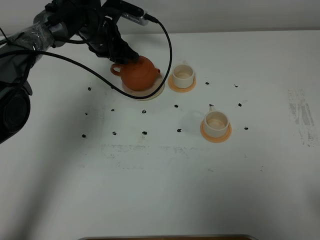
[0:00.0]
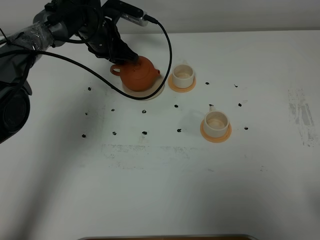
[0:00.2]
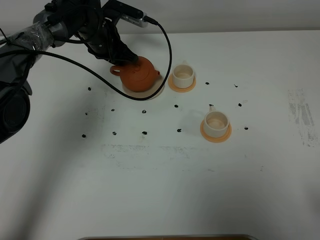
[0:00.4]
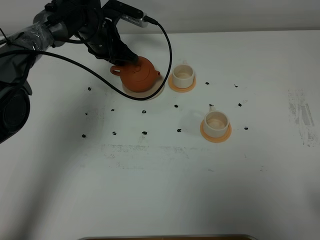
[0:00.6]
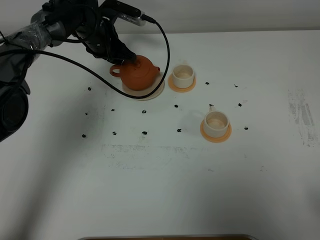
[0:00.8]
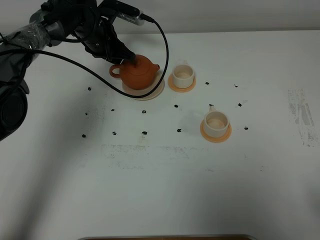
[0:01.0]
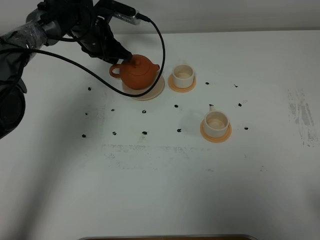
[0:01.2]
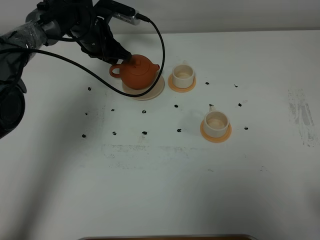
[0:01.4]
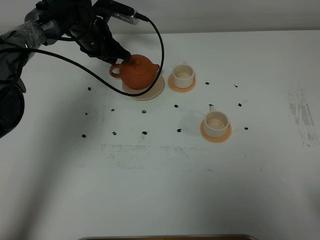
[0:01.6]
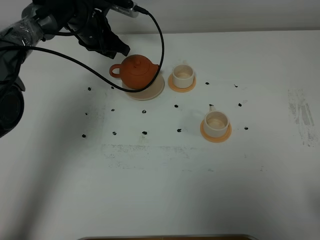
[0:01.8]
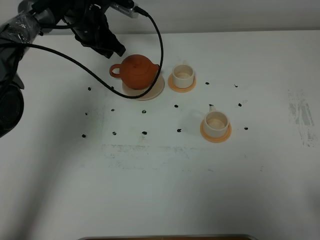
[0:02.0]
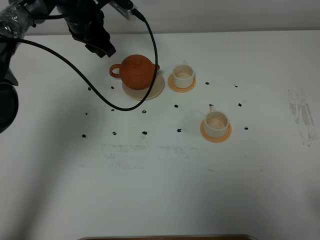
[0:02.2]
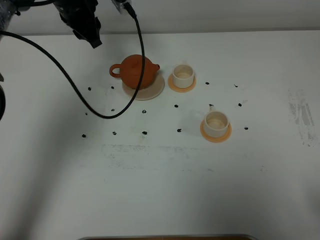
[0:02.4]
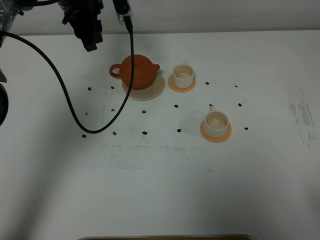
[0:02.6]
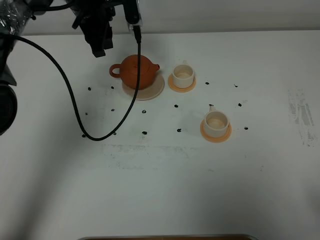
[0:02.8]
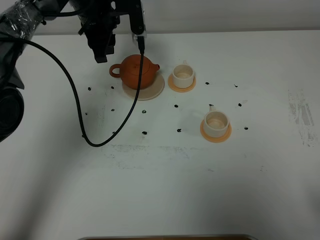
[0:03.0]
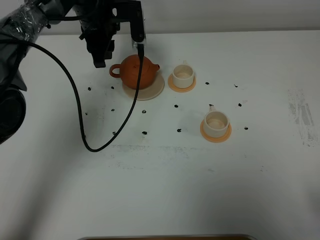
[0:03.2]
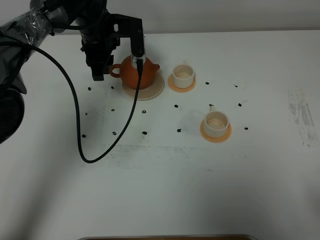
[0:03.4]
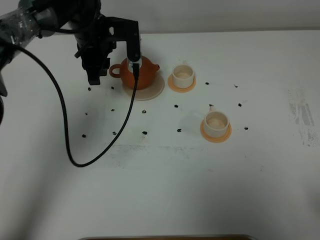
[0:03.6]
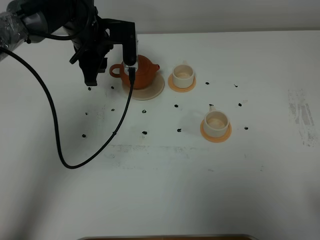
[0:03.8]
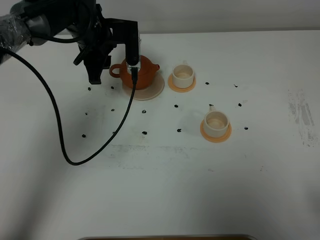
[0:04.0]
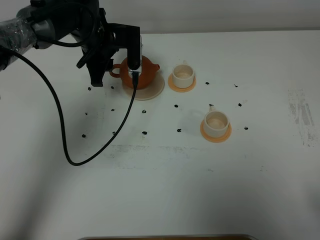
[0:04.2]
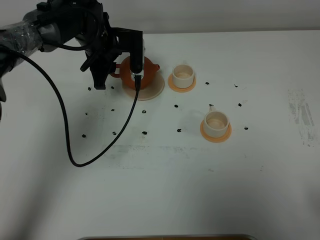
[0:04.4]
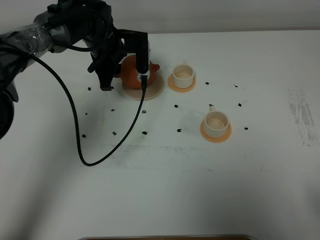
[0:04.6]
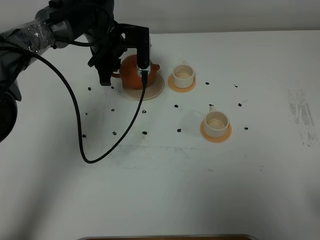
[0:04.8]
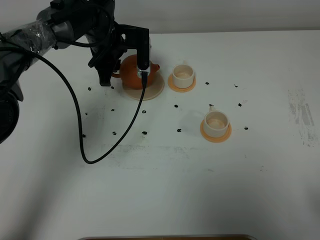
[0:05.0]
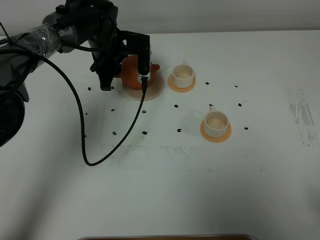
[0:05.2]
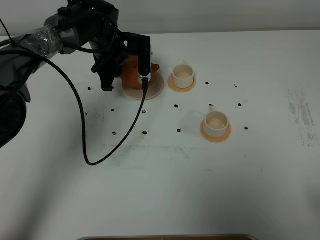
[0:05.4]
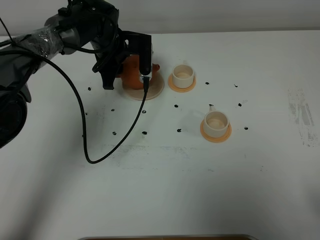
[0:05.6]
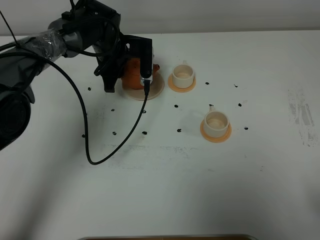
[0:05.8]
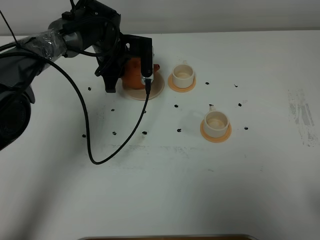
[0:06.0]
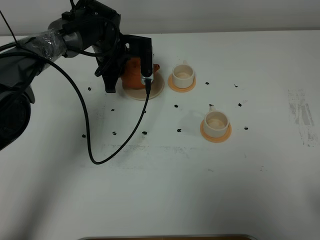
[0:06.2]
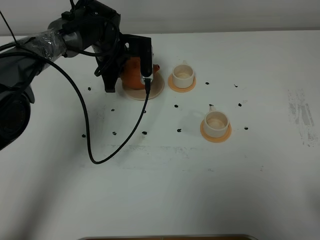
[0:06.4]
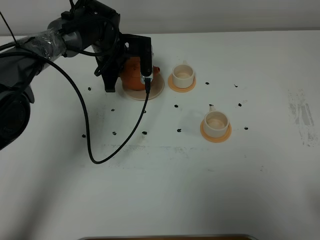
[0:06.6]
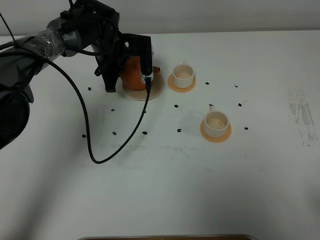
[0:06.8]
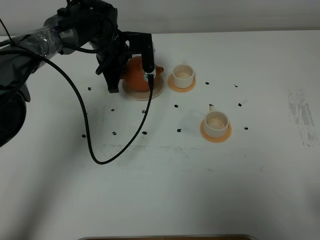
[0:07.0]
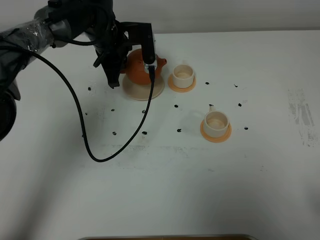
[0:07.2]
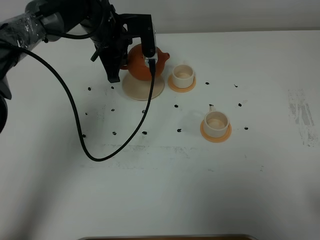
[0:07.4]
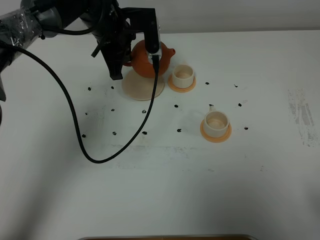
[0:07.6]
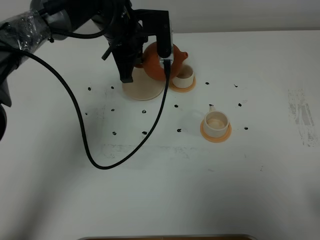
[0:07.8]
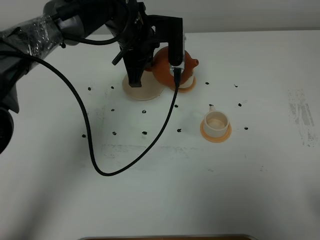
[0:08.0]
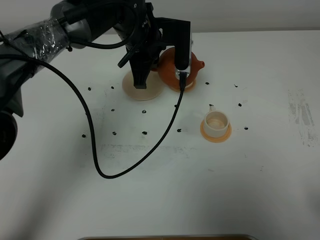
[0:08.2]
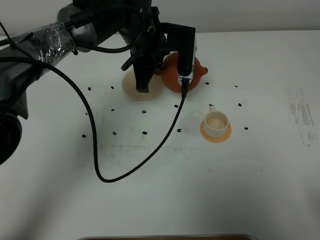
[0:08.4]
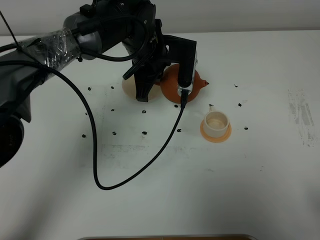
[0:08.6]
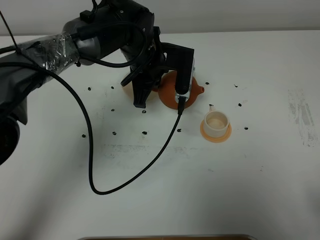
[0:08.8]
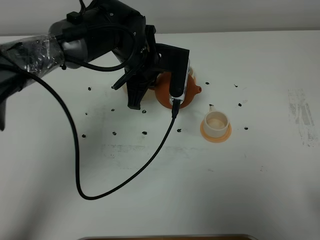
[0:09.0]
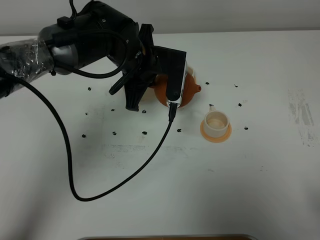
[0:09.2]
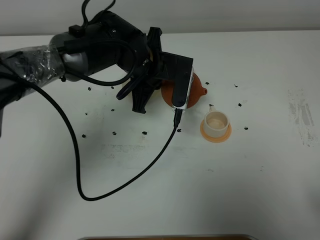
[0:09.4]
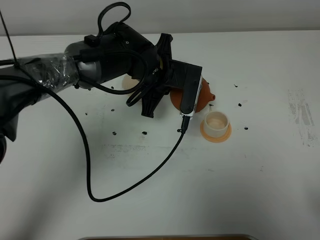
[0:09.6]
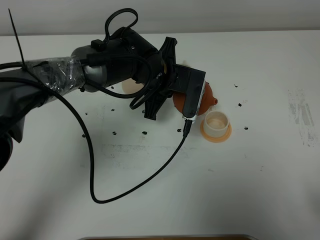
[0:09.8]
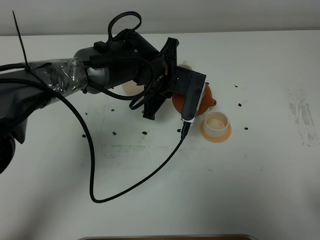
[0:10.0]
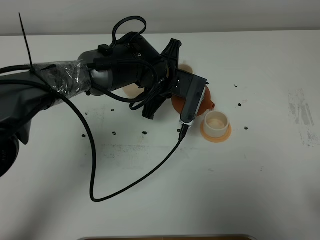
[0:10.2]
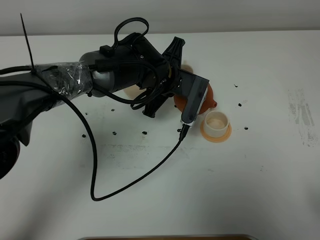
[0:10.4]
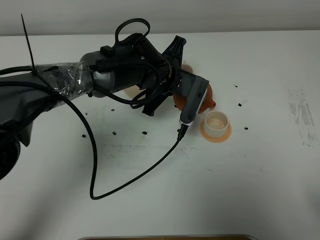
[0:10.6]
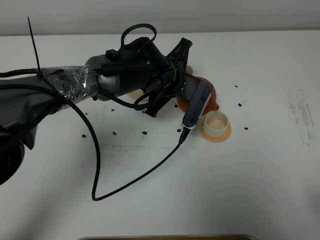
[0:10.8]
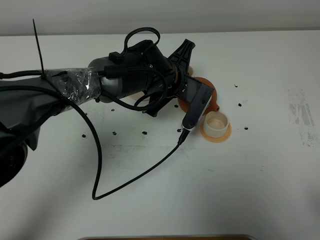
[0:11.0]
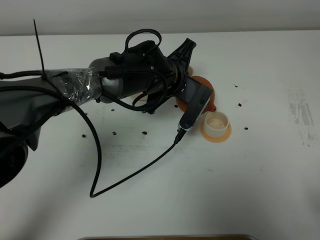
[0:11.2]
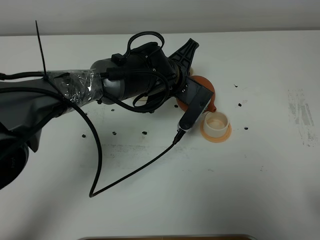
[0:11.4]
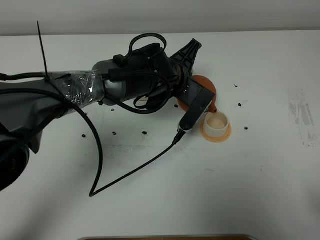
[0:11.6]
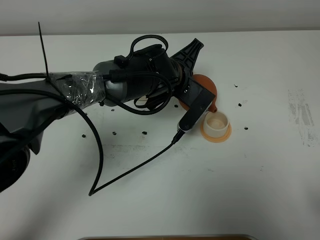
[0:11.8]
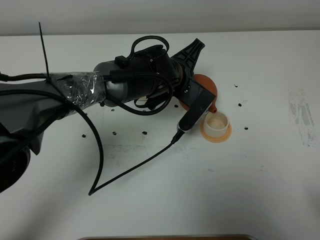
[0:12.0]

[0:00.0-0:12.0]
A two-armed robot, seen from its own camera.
Task of the whole recording: grasp the brown teapot and pour the tea into the two white teacups one by one, put the brown teapot back in its original place.
Step, 0:00.0 to 0:06.8: Pick up the teapot with the left gripper.
0:00.0 to 0:01.6: The grippers make only small movements.
0:01.6 to 0:03.0: The left gripper goes about 10 cm upward.
0:03.0 to 0:04.4: The left gripper travels downward by approximately 5 cm.
0:04.4 to 0:06.0: The grippers stay close to where they were, moving slightly.
0:06.0 to 0:07.6: The left gripper travels upward by about 10 cm, and closes its fingers.
0:07.6 to 0:09.0: The left gripper is displaced backward and to the right by approximately 10 cm.
0:09.0 to 0:10.4: The left gripper ends up approximately 5 cm from where it was.
0:10.4 to 0:12.0: The grippers move only a little.

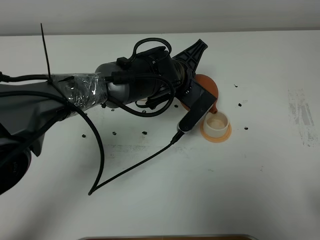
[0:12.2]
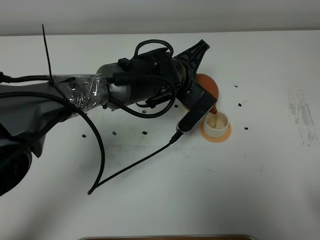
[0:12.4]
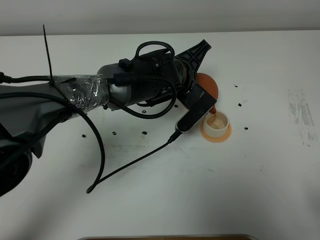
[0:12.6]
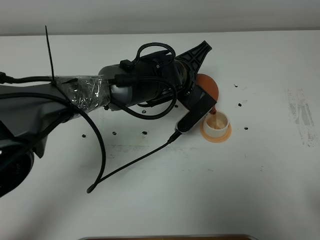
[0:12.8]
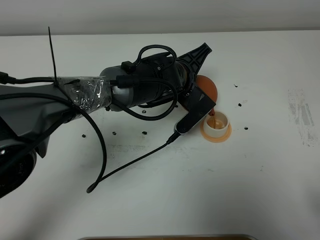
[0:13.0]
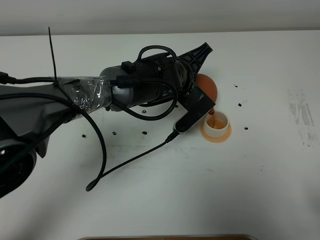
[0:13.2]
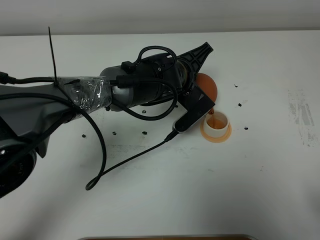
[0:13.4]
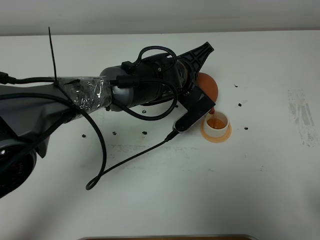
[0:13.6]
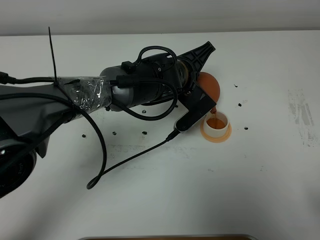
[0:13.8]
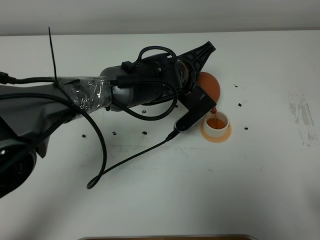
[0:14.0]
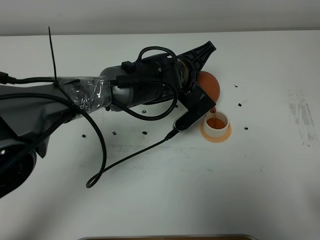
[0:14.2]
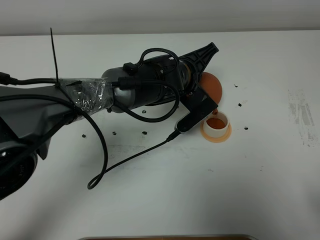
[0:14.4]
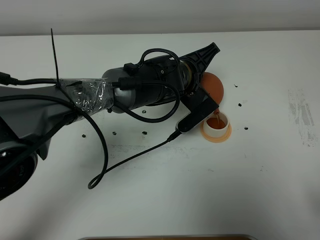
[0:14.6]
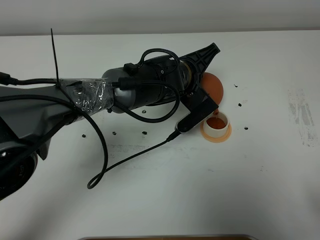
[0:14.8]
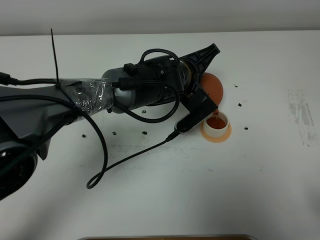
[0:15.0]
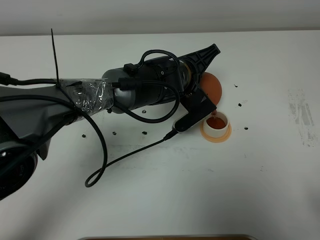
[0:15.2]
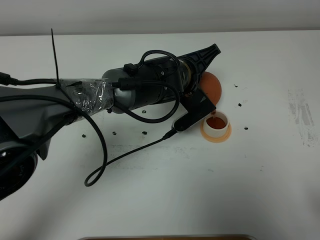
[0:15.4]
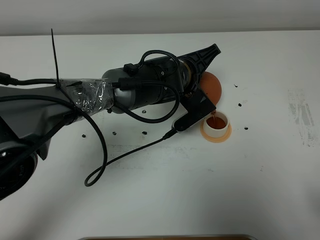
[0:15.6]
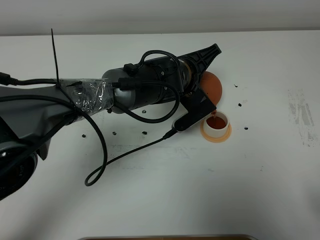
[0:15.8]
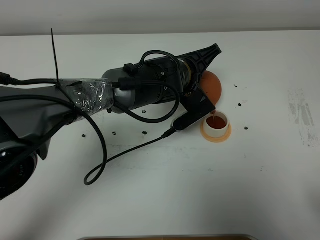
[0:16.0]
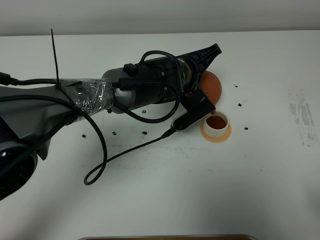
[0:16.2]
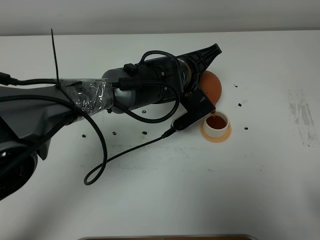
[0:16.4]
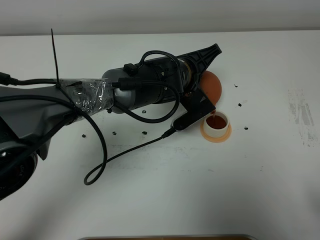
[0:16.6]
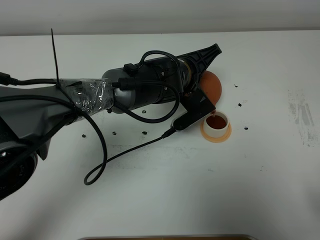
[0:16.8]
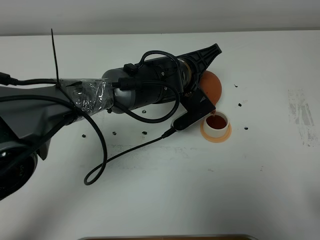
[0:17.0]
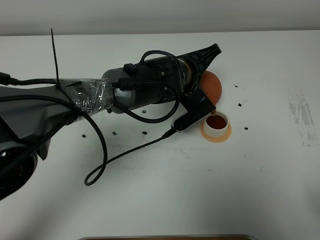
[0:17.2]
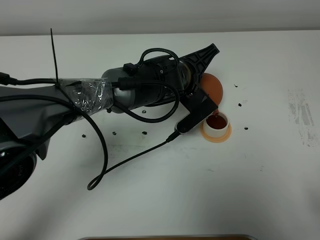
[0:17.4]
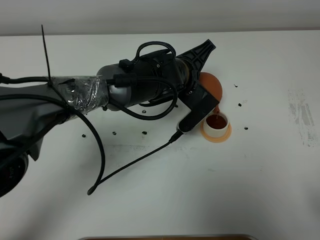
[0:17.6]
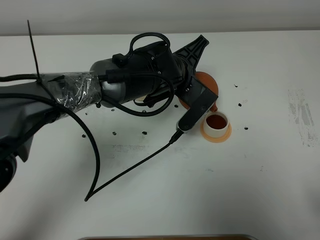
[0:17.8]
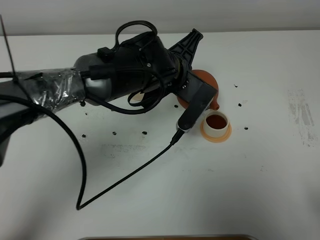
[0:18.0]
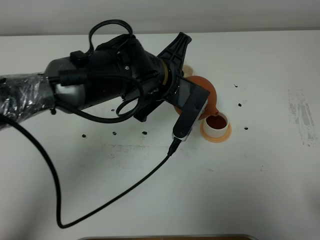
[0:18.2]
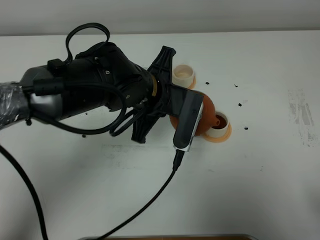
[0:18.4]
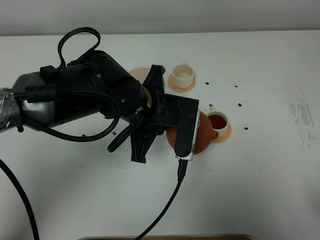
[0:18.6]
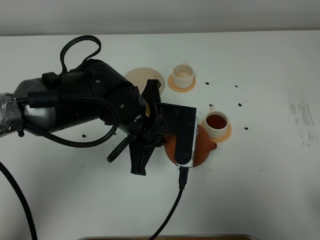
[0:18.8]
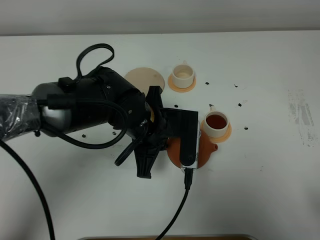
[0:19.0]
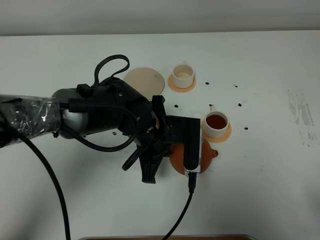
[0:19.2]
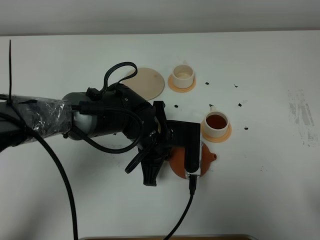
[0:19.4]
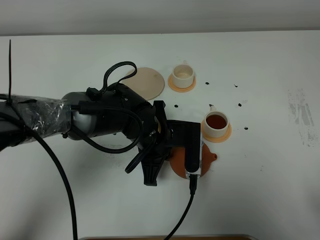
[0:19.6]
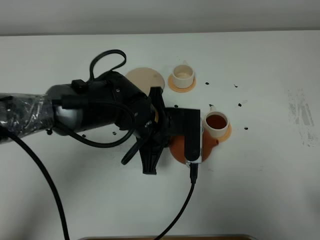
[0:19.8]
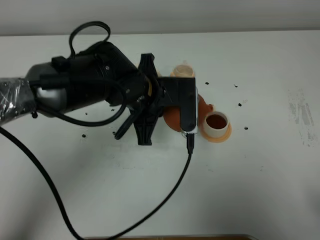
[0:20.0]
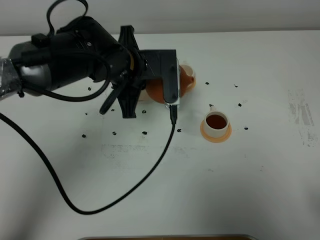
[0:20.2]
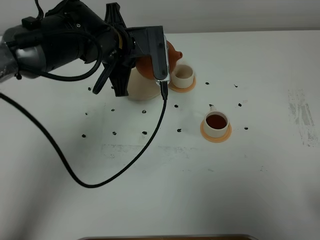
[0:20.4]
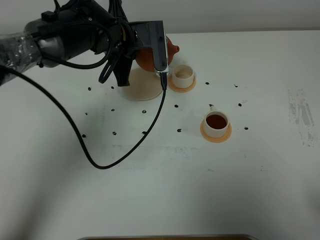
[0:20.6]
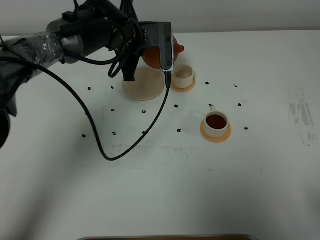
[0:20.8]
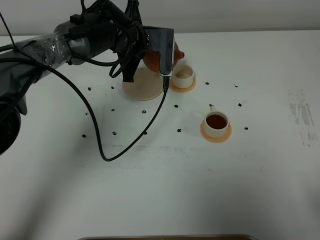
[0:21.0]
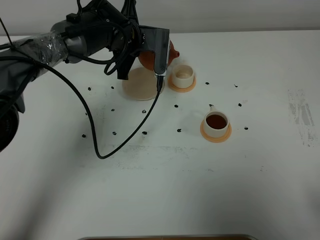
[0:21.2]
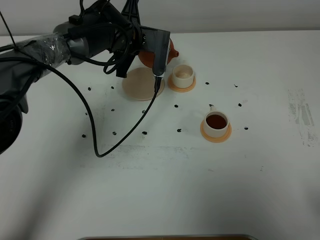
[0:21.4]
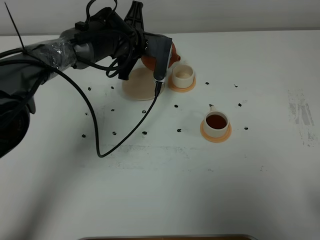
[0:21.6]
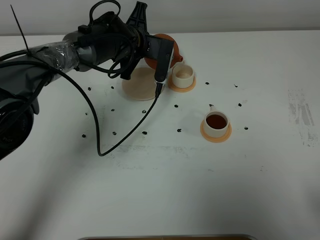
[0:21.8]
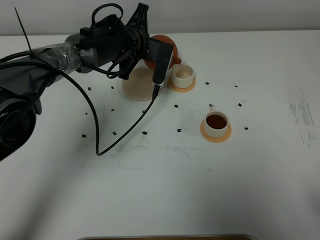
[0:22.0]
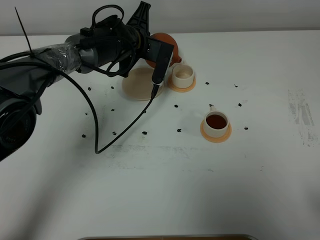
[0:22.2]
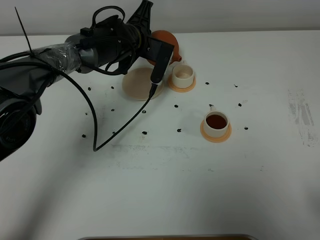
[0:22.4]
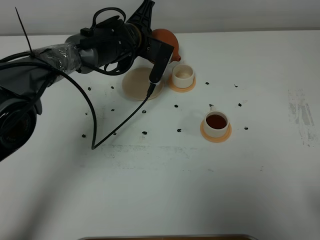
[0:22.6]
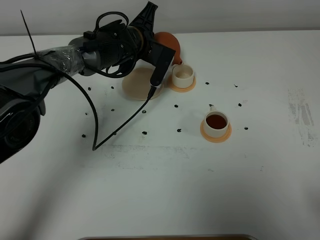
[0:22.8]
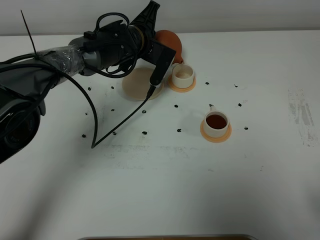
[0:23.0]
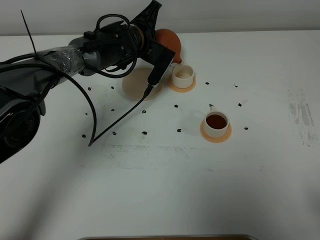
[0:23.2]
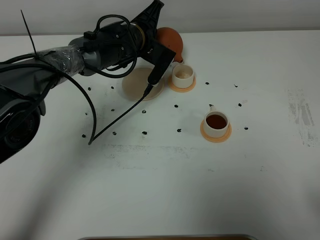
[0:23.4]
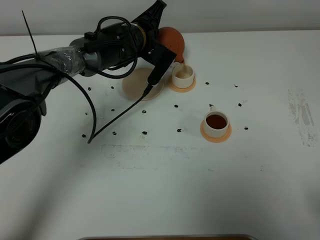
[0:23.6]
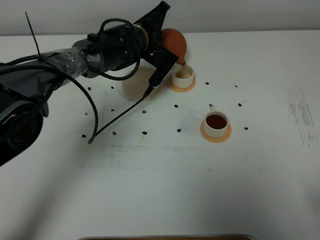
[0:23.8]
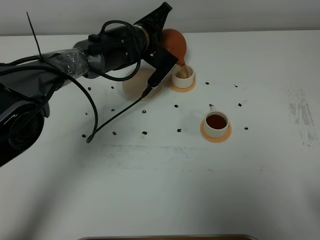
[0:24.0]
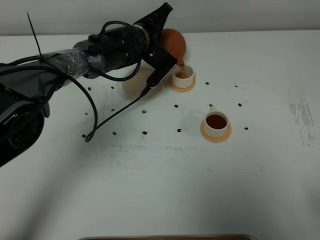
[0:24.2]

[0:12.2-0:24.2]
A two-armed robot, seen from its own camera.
Task of the whole recording: grasp the brown teapot and pour the tea into the two white teacups one by one, put the brown teapot back in its original place.
Step, 0:12.2 to 0:17.8: Pour tea into the teacup with the left gripper.
0:12.2 to 0:15.2: The grippers make only small movements.
0:15.2 to 0:16.6: The two grippers keep their place.
0:16.6 to 0:18.2: The left gripper is displaced upward and backward by roughly 5 cm.
0:19.8 to 0:21.2: The left gripper heads forward, covering some 20 cm.
0:22.6 to 0:24.2: The grippers make only small movements.
